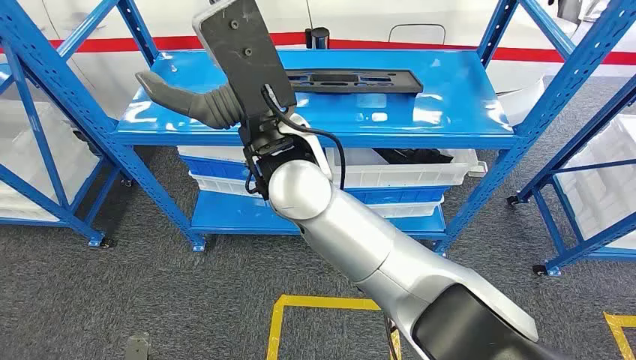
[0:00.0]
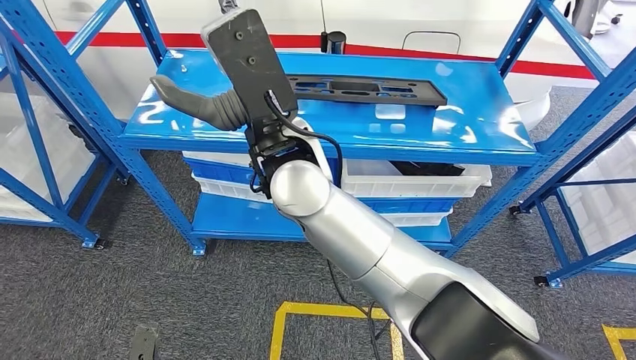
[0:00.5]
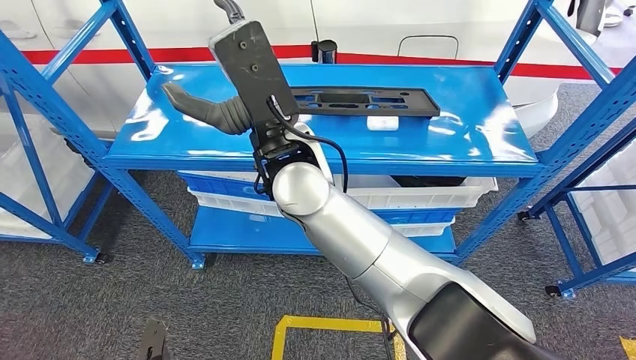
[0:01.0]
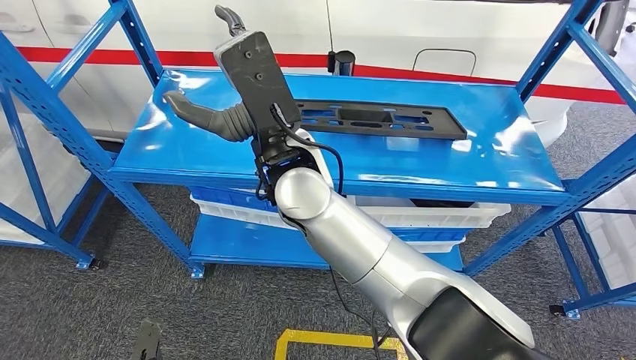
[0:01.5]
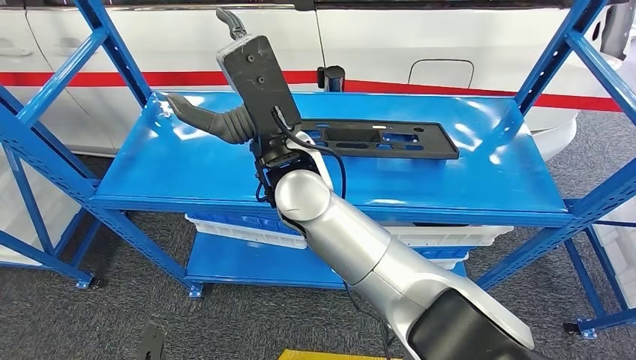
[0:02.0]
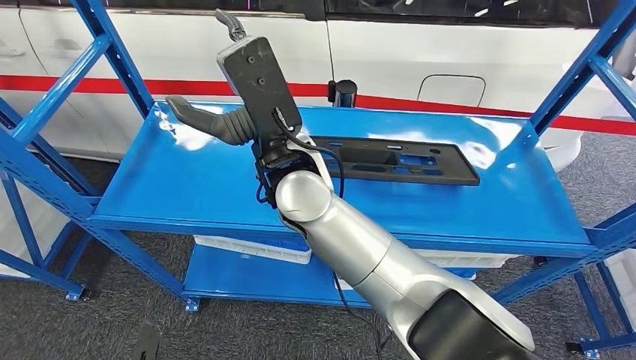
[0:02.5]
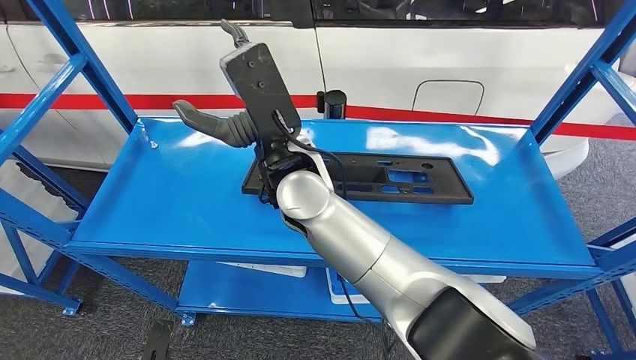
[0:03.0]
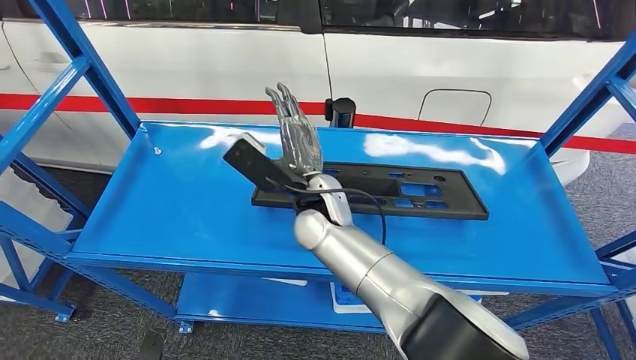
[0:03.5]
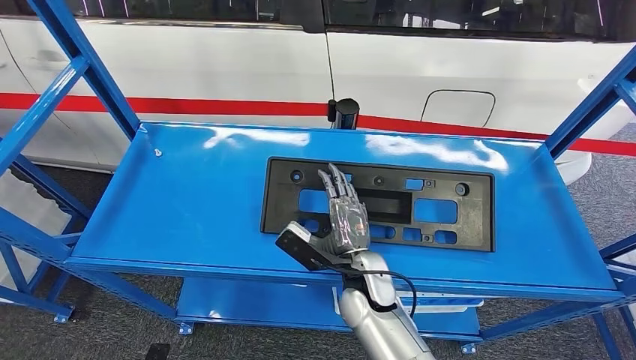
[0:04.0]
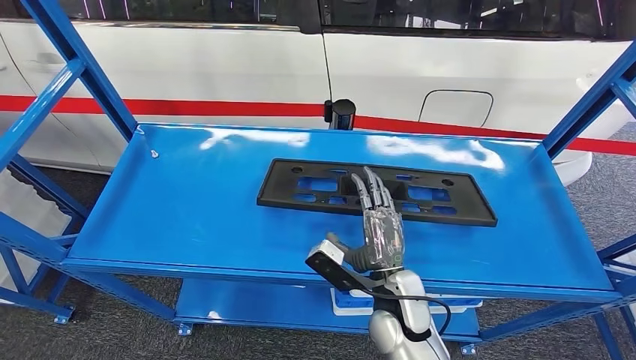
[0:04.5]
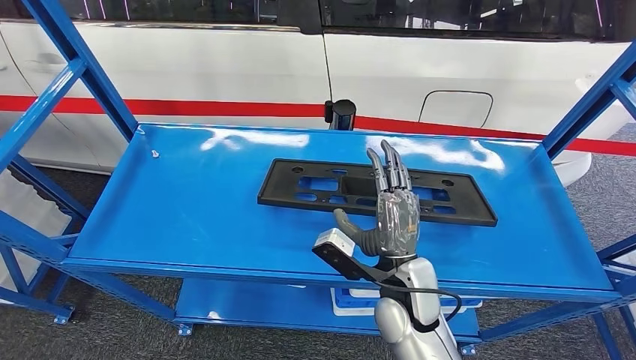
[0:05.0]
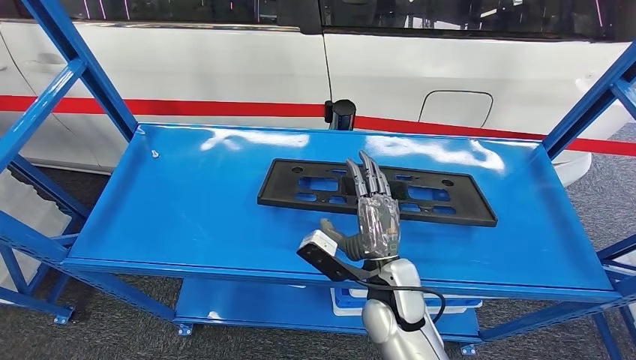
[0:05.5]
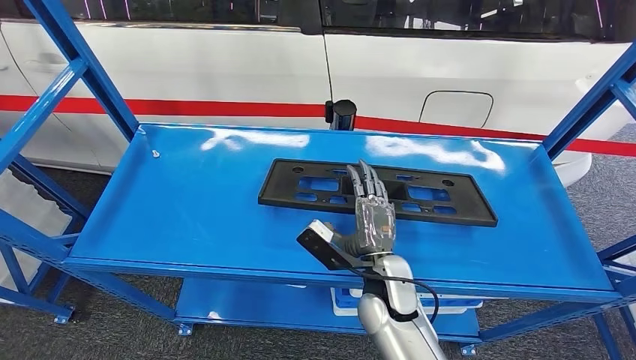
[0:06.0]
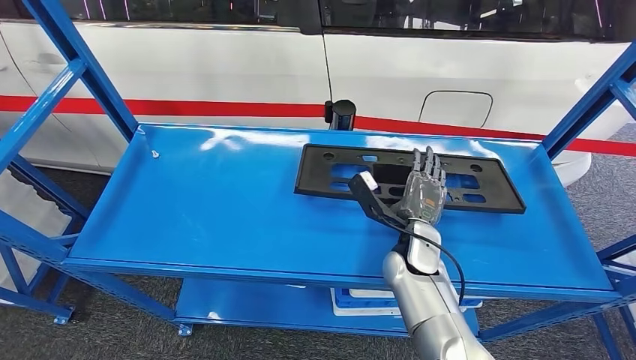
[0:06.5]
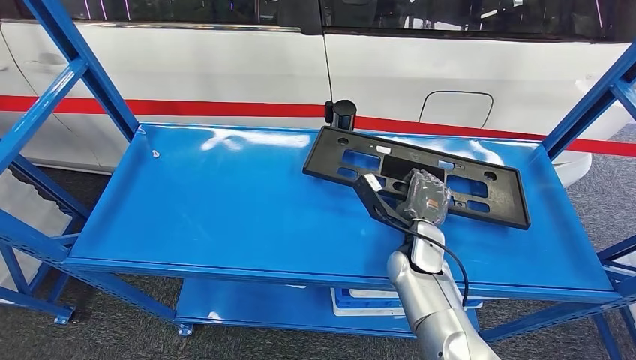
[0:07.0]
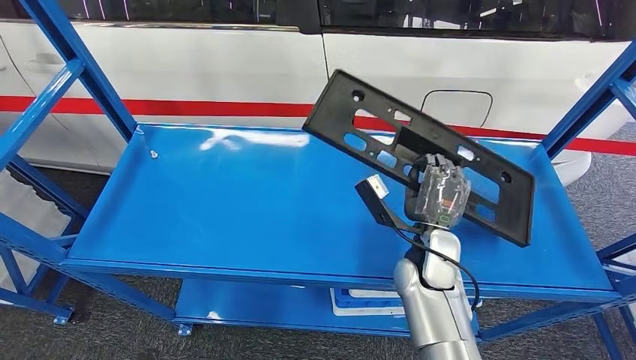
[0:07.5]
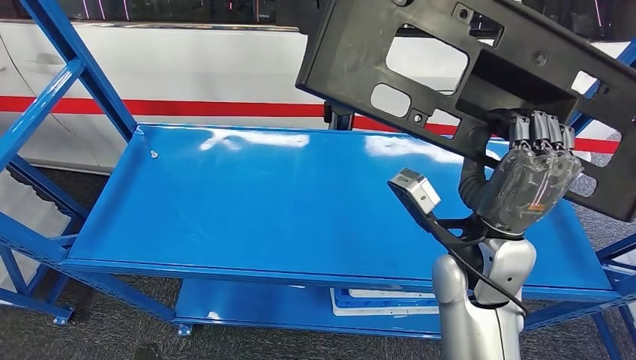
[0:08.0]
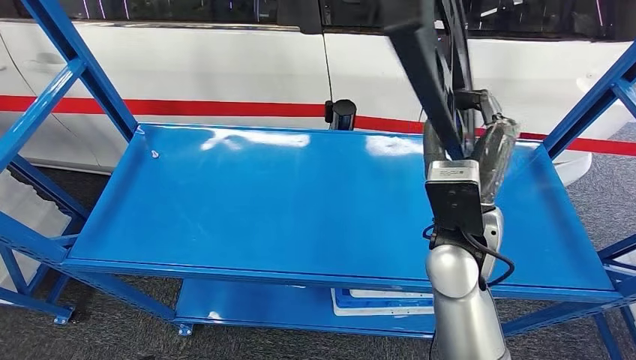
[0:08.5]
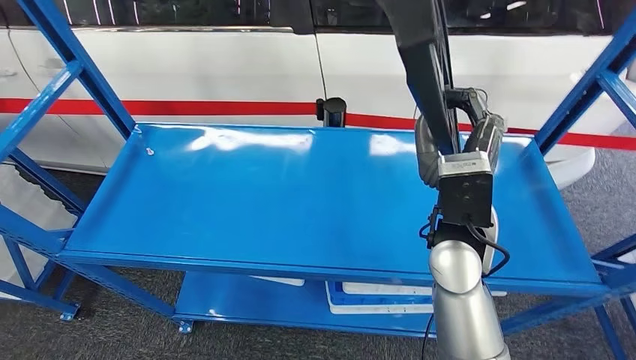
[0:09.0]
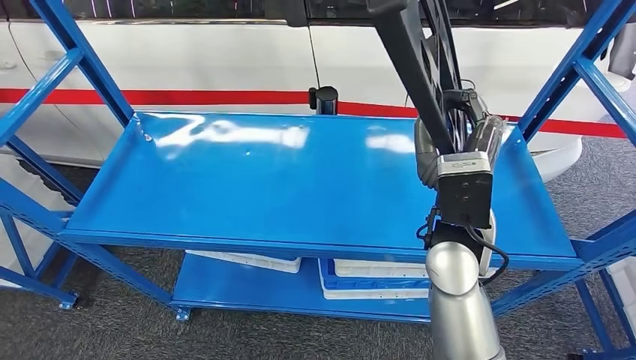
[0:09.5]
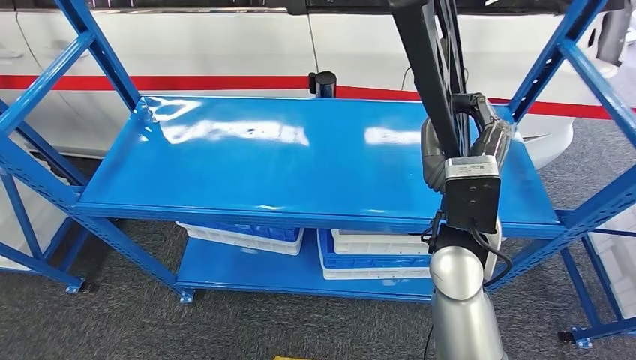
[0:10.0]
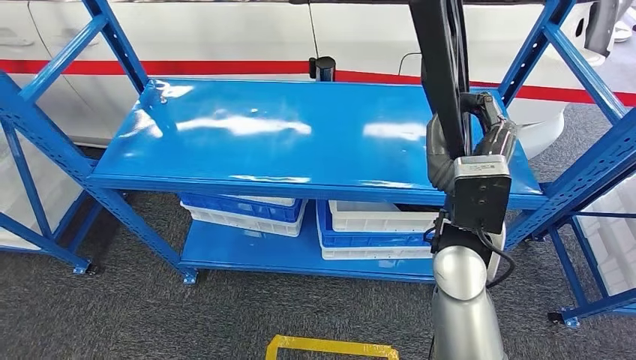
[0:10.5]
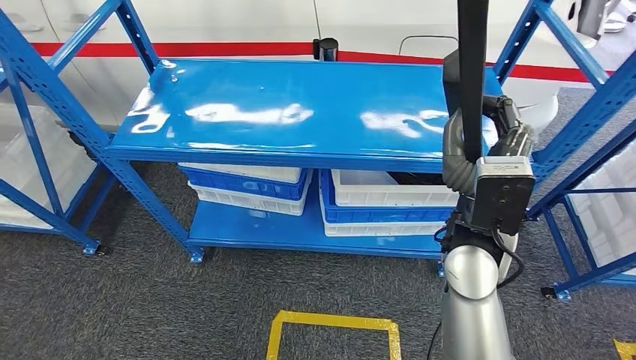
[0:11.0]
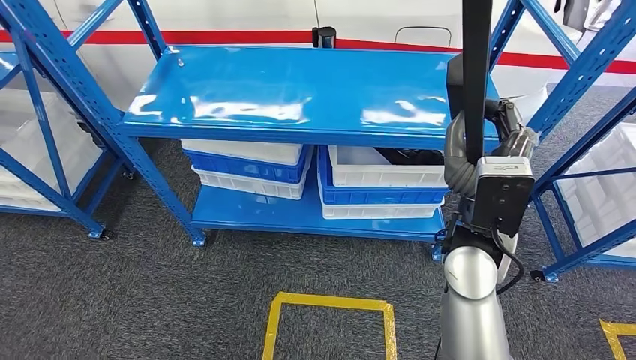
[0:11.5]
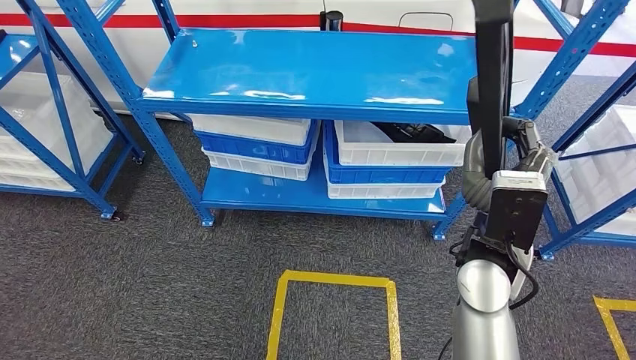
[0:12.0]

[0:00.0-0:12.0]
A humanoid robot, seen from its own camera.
Step, 0:00.0 to 0:11.0: Pick up the large material from the shelf.

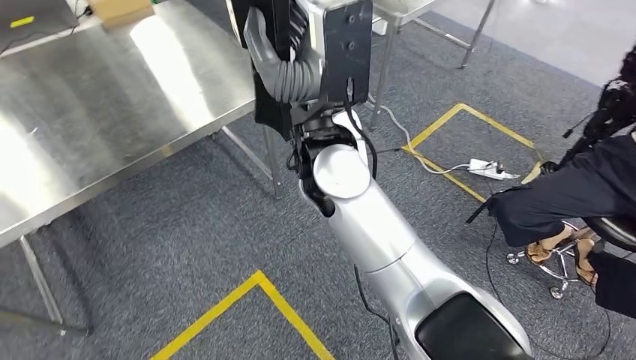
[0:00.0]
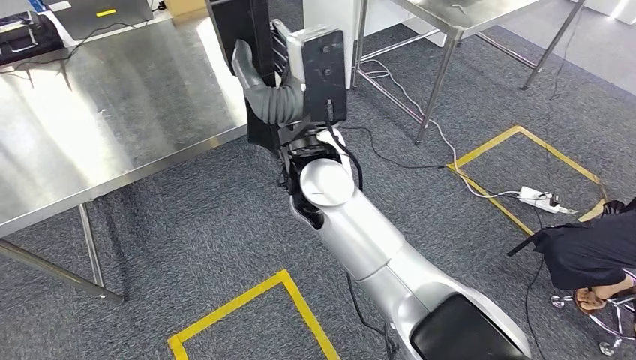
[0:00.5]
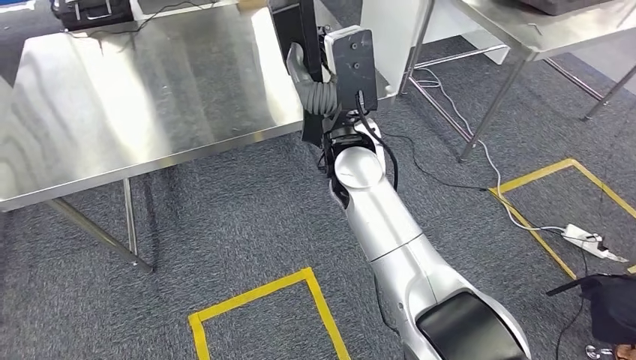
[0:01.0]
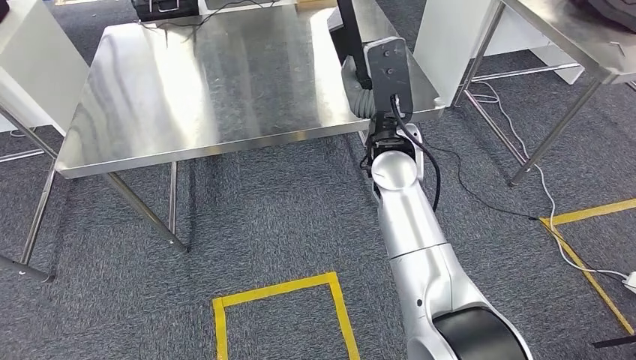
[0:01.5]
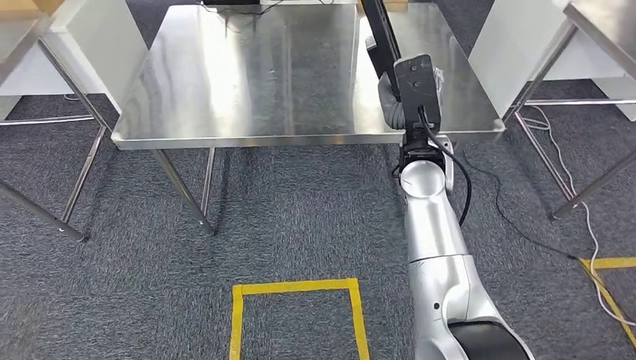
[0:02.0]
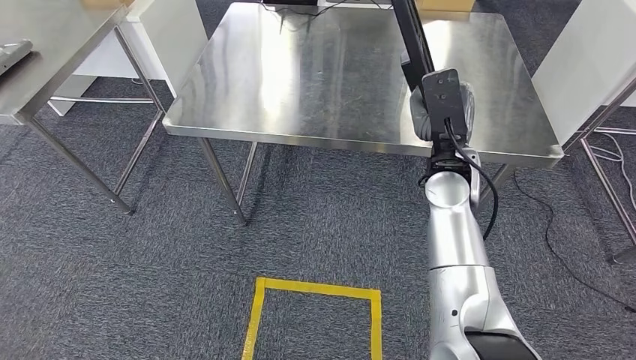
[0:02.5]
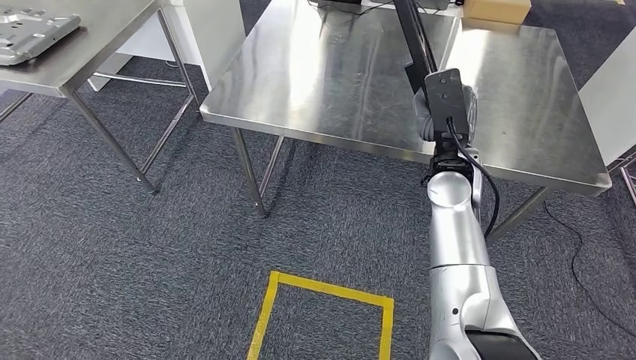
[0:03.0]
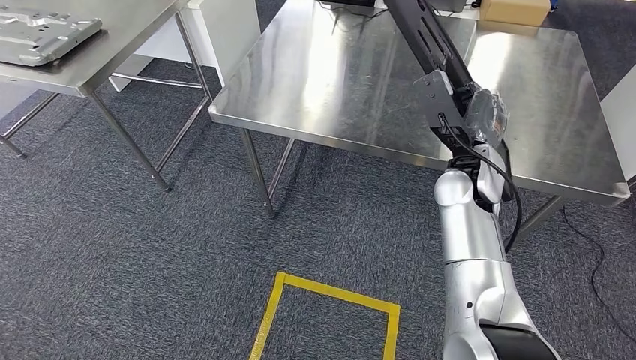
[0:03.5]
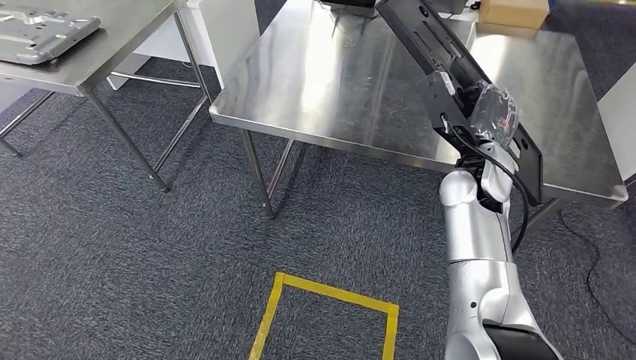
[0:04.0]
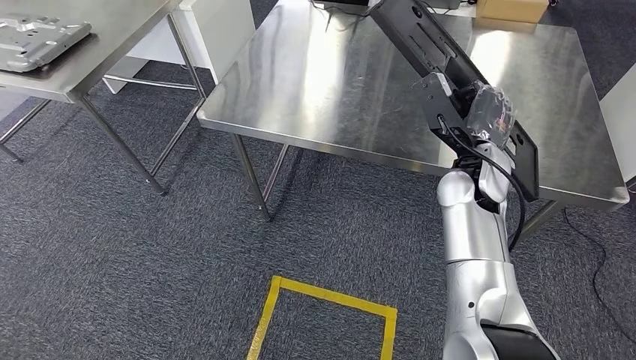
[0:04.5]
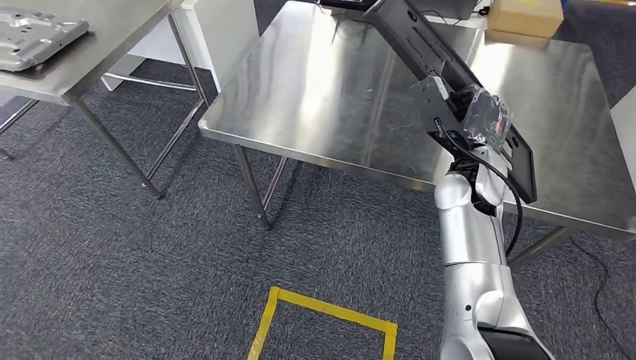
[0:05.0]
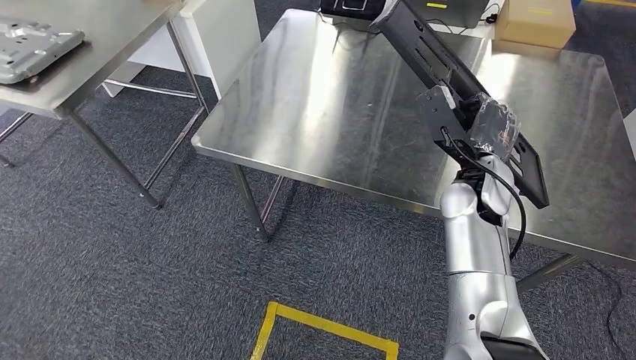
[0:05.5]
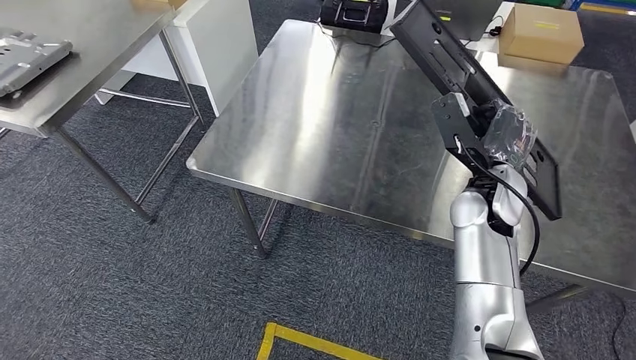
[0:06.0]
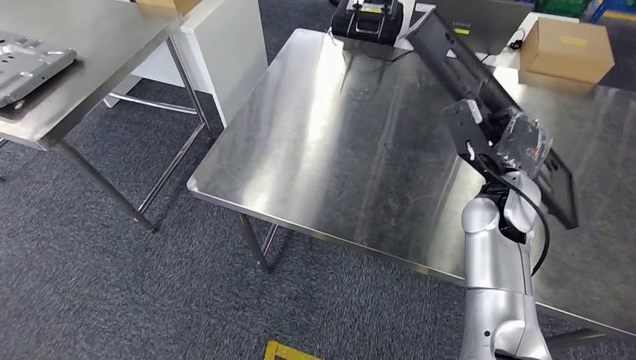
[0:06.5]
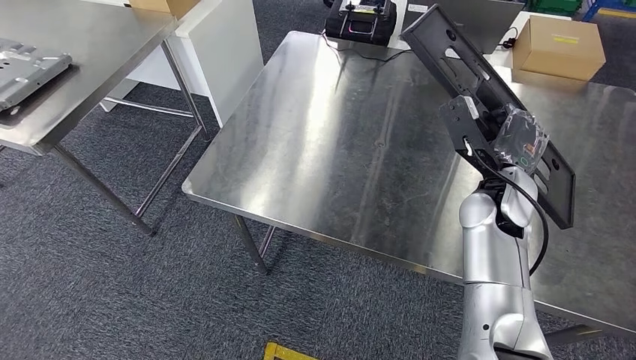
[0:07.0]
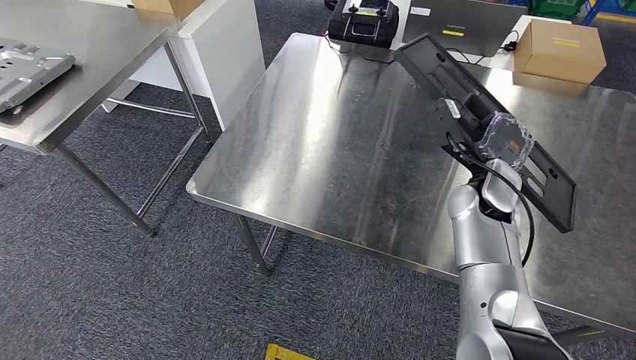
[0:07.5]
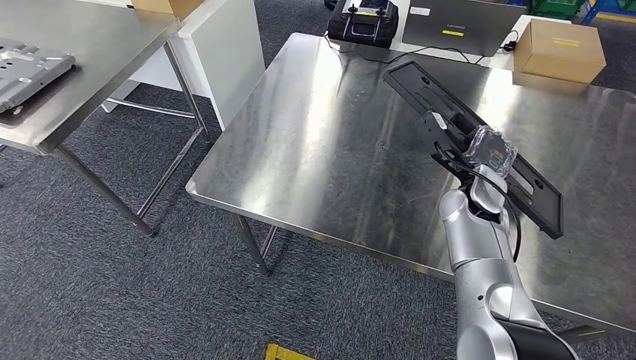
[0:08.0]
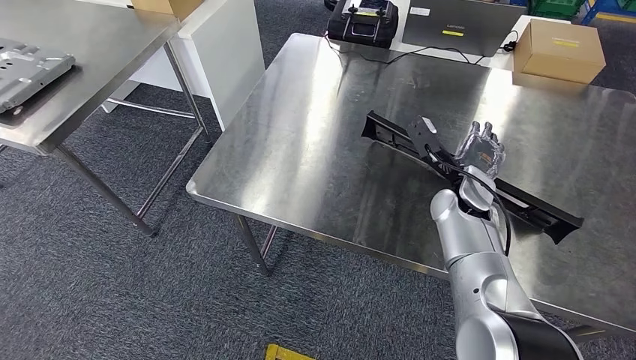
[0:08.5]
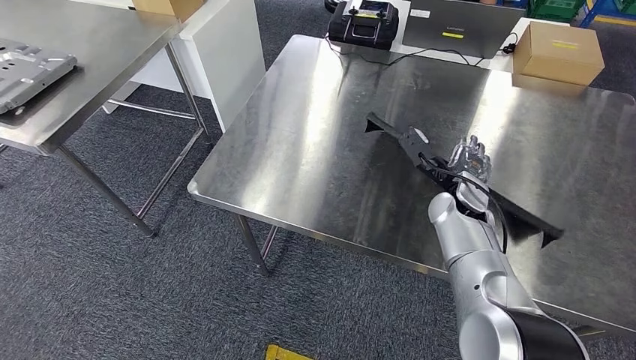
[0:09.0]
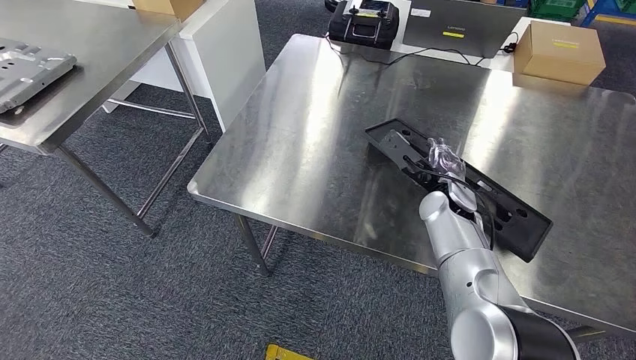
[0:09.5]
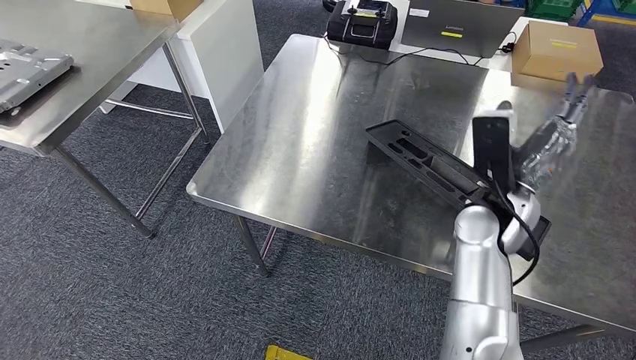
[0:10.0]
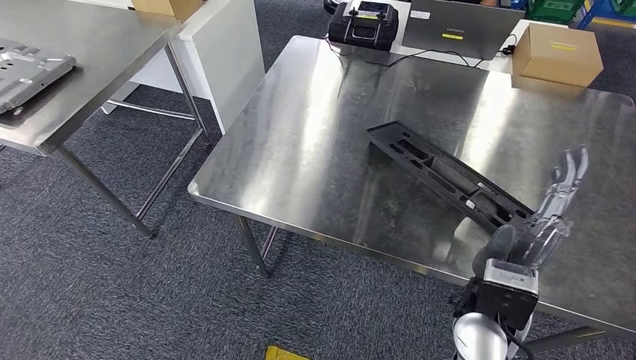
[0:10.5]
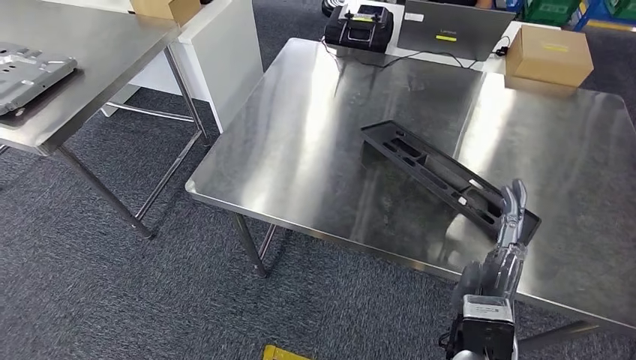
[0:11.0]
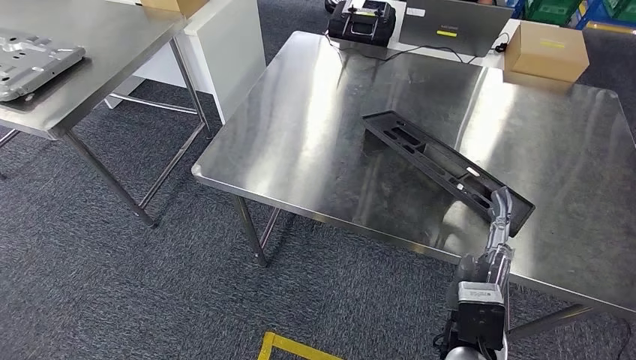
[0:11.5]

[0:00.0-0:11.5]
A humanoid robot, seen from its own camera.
Step, 0:00.0 to 0:02.0: Move the large material to the workbench.
0:07.5 to 0:09.5: The right hand moves downward, about 5 cm.
